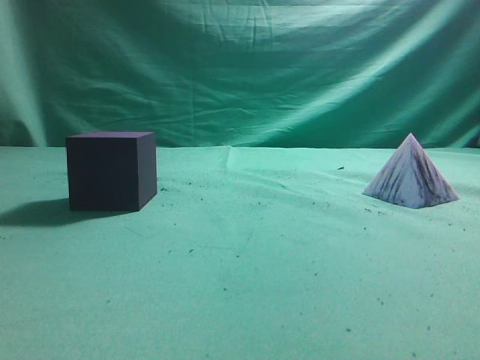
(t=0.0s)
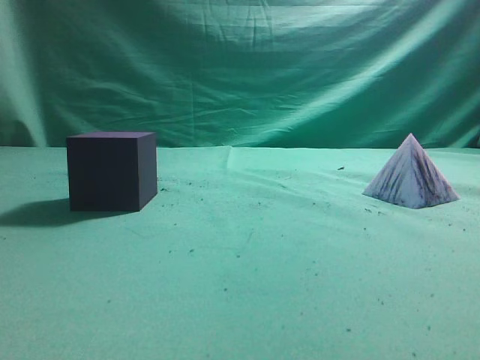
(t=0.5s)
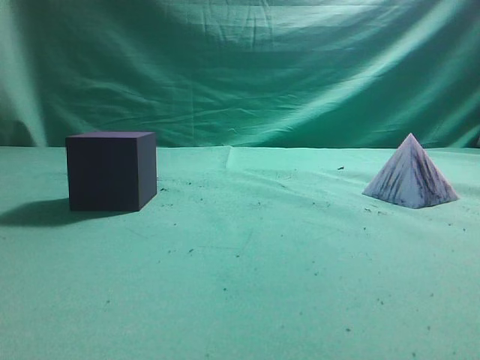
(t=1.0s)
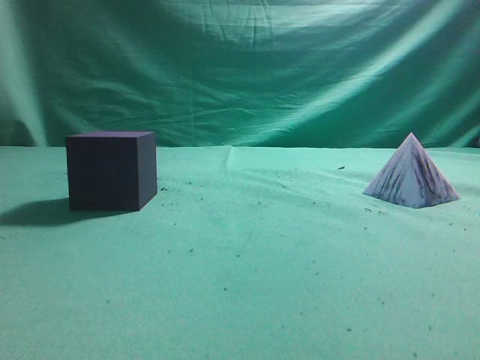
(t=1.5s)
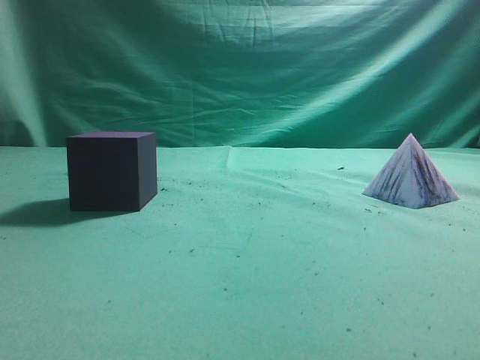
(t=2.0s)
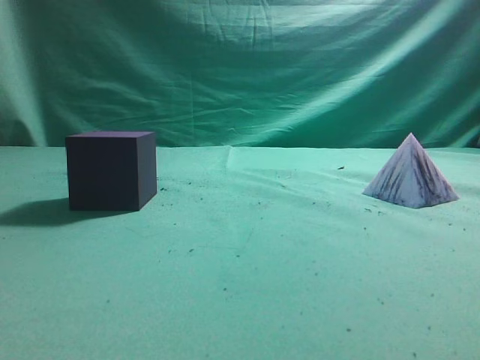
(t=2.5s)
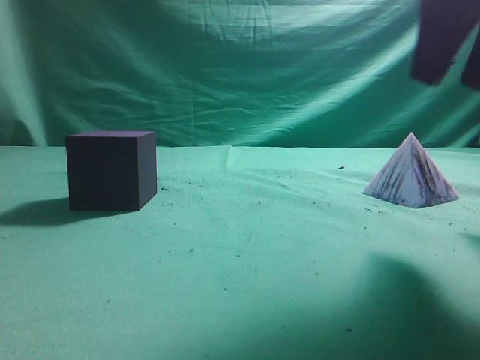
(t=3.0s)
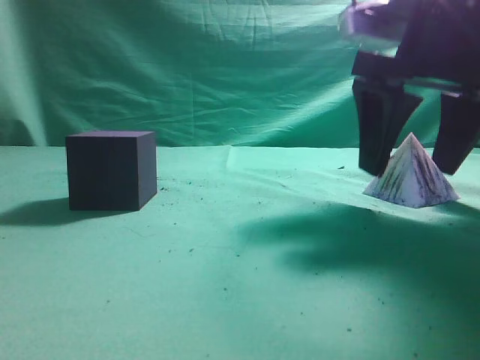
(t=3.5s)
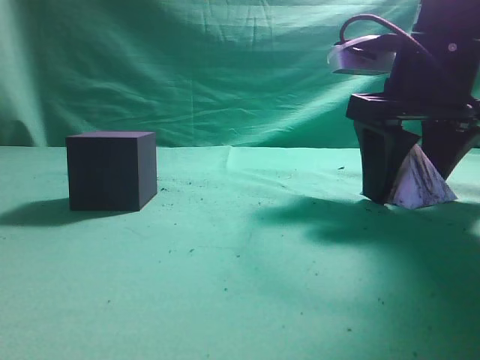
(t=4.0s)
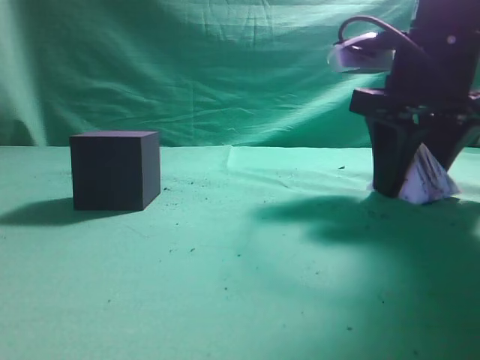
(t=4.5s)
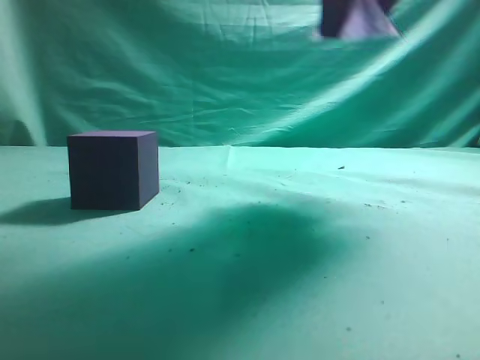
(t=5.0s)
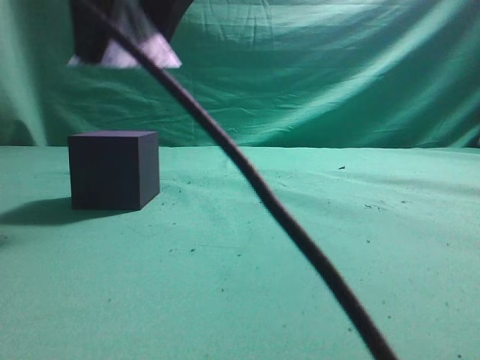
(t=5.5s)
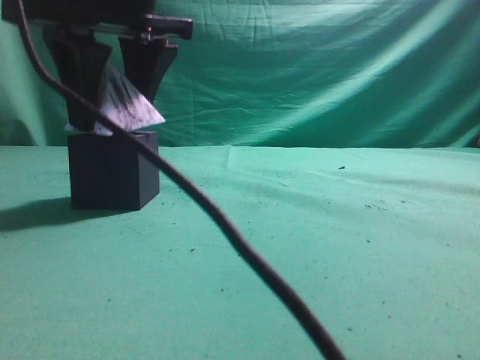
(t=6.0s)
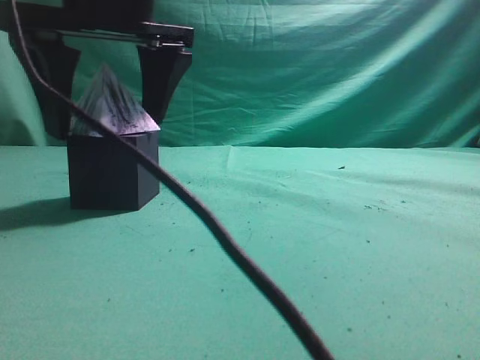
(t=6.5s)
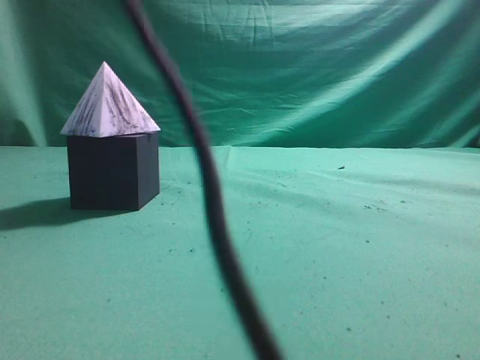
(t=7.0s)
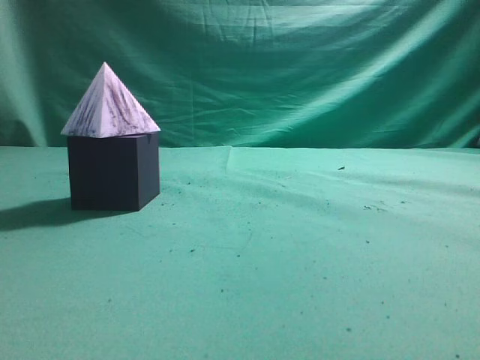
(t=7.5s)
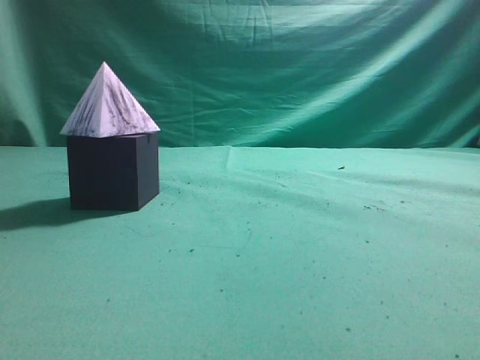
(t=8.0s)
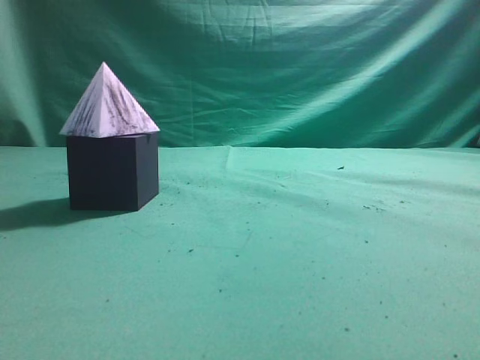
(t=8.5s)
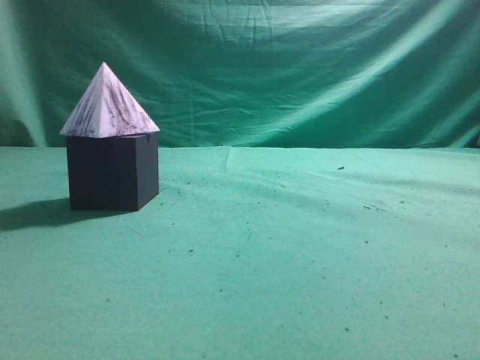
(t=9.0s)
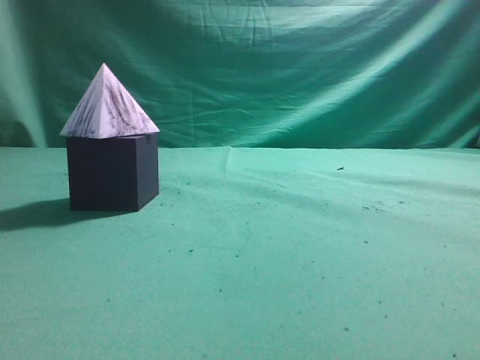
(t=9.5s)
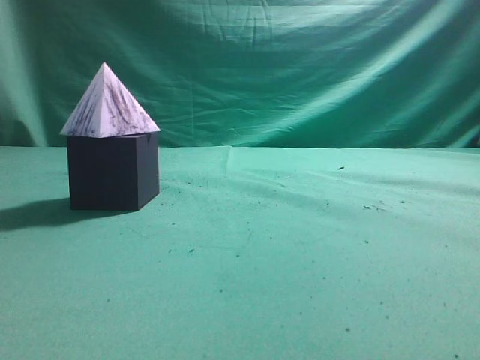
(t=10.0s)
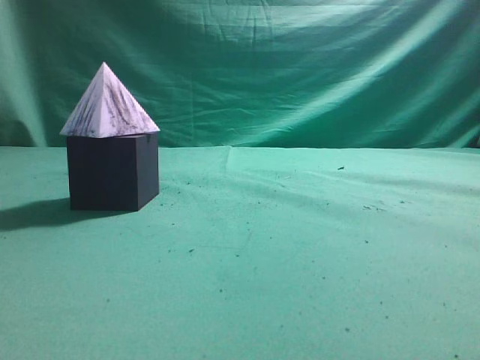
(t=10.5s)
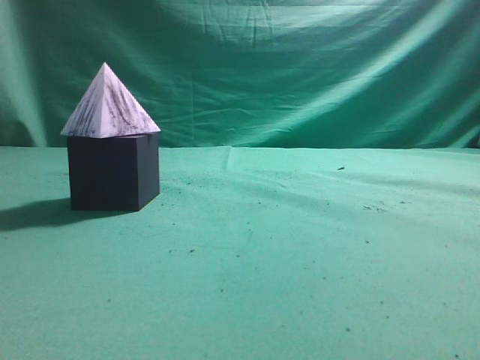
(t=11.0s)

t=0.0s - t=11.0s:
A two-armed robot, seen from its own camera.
Task of the whole recording: pick up the square pyramid from the table and place it on the cube block.
Step, t=0.0s - t=4.5s: Grasp the triangular block.
Step, t=5.0s - t=6.5s: Place the block onto the cube-shaped block.
t=2.0s - t=3.5s: The right gripper travels forward, downward and to the left by roughly 25 cm, and opens.
t=3.5s - t=5.5s: The right gripper heads to the left and upward, covering roughly 25 cm, and closes its fingers.
t=5.5s - t=7.5s: The right gripper travels upward and to the right by about 25 cm, and closes its fingers.
